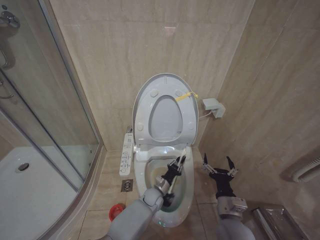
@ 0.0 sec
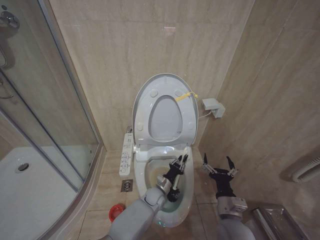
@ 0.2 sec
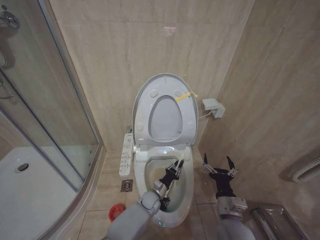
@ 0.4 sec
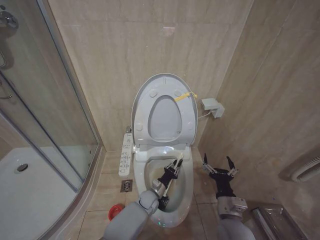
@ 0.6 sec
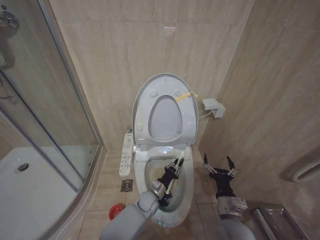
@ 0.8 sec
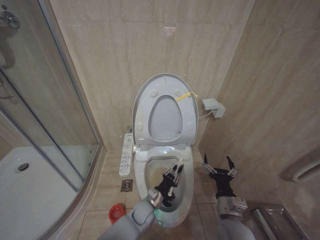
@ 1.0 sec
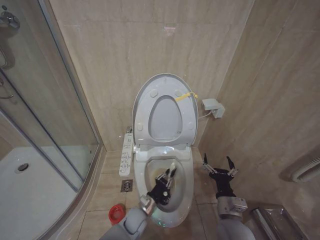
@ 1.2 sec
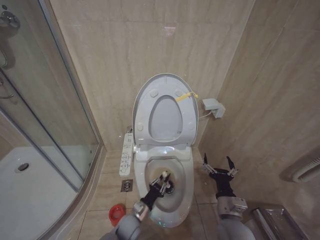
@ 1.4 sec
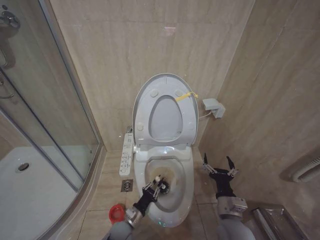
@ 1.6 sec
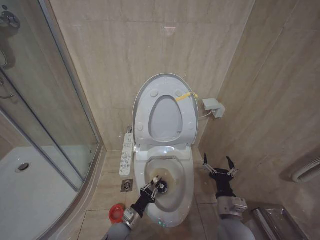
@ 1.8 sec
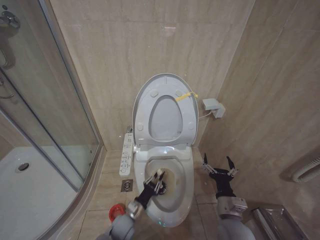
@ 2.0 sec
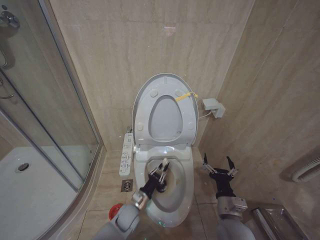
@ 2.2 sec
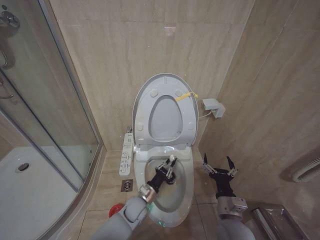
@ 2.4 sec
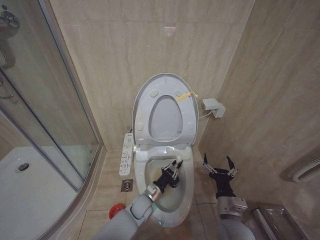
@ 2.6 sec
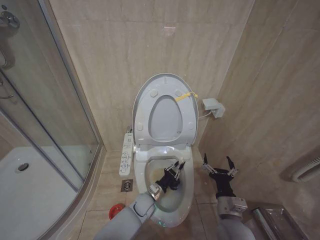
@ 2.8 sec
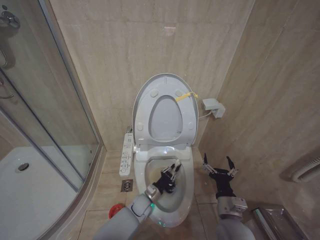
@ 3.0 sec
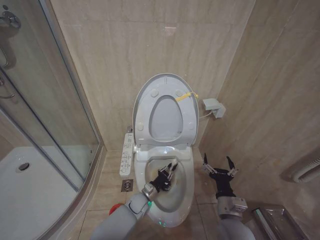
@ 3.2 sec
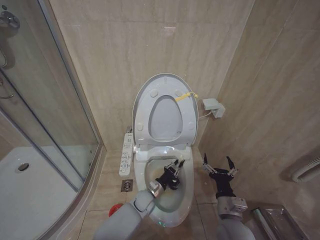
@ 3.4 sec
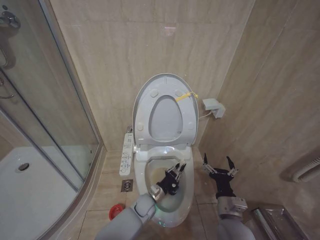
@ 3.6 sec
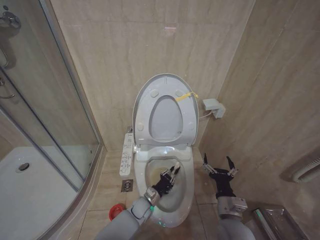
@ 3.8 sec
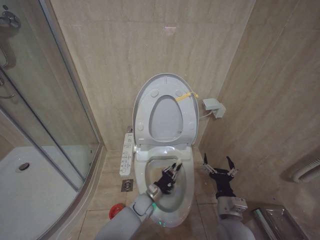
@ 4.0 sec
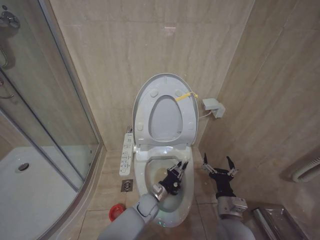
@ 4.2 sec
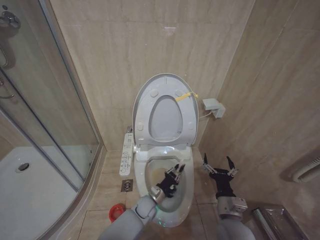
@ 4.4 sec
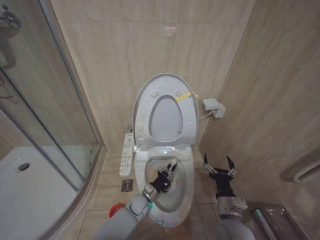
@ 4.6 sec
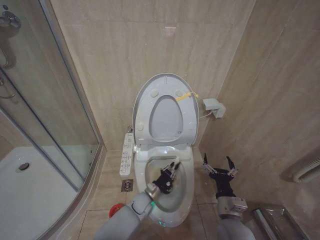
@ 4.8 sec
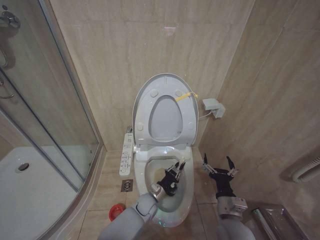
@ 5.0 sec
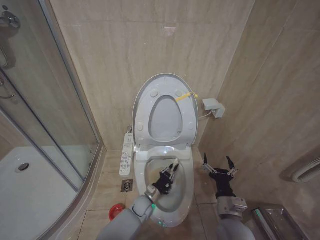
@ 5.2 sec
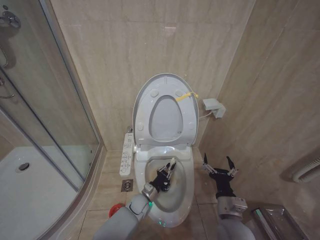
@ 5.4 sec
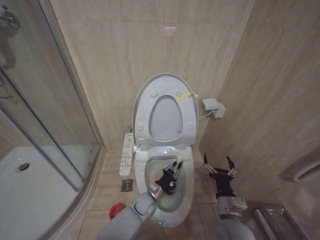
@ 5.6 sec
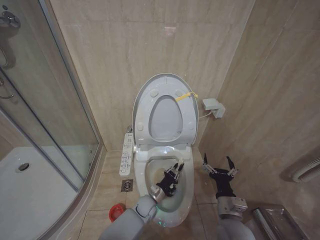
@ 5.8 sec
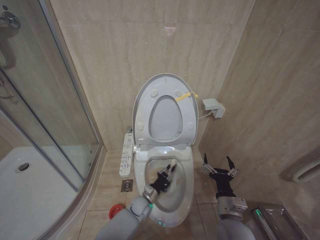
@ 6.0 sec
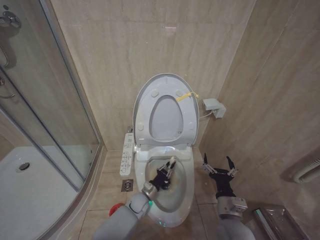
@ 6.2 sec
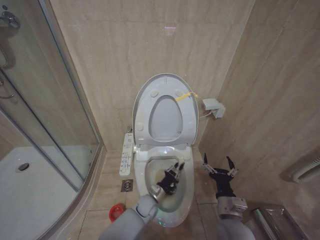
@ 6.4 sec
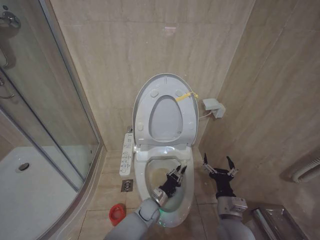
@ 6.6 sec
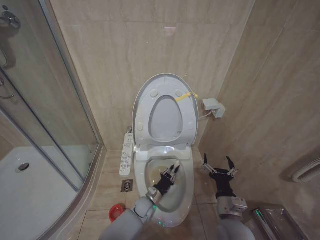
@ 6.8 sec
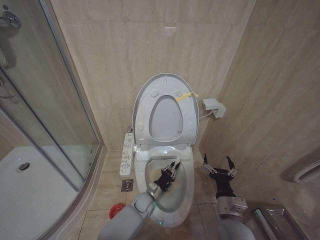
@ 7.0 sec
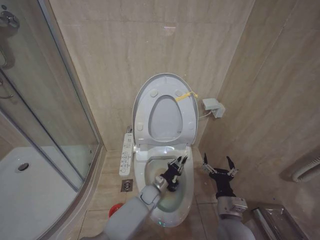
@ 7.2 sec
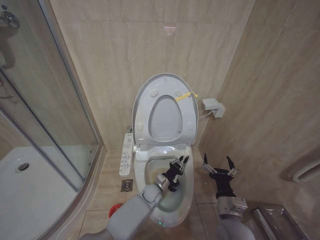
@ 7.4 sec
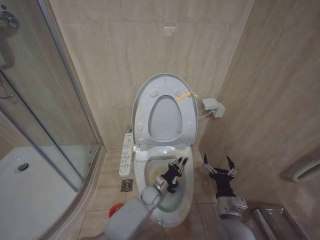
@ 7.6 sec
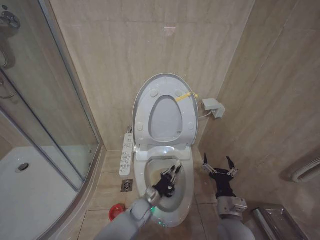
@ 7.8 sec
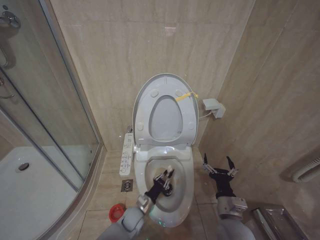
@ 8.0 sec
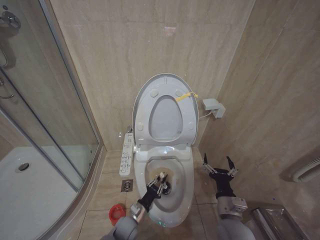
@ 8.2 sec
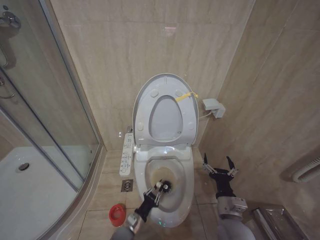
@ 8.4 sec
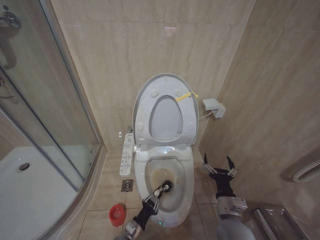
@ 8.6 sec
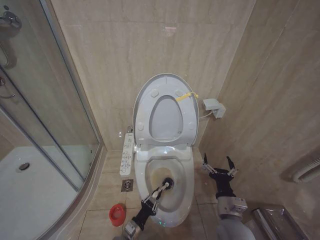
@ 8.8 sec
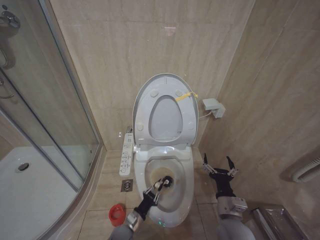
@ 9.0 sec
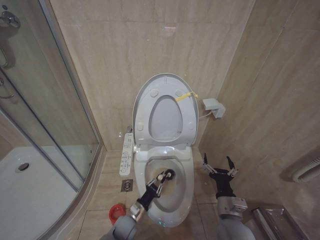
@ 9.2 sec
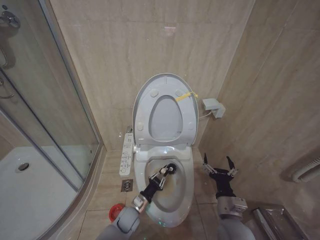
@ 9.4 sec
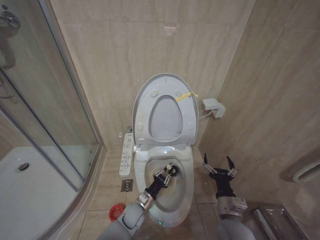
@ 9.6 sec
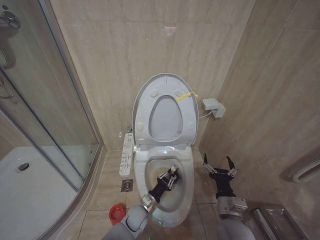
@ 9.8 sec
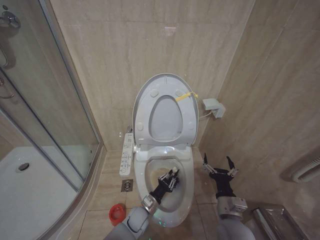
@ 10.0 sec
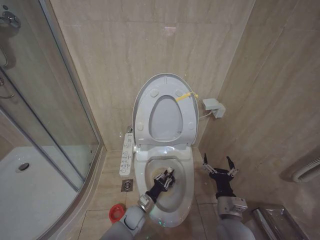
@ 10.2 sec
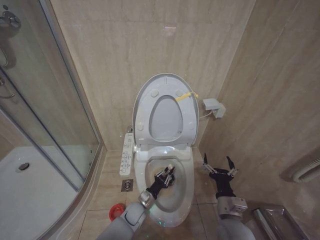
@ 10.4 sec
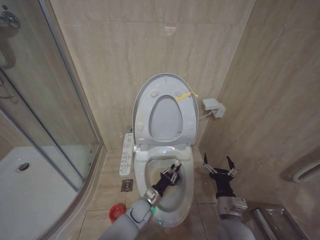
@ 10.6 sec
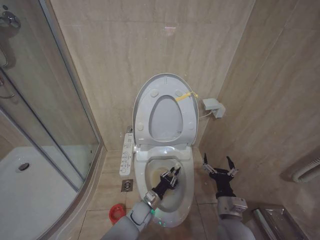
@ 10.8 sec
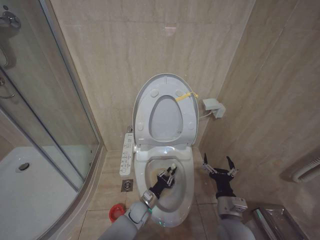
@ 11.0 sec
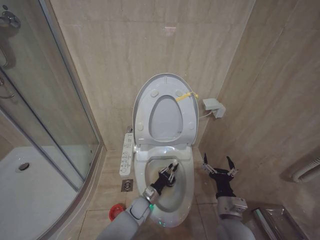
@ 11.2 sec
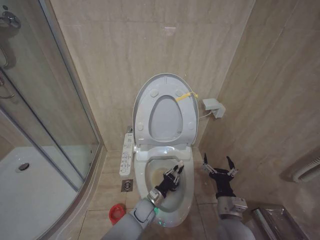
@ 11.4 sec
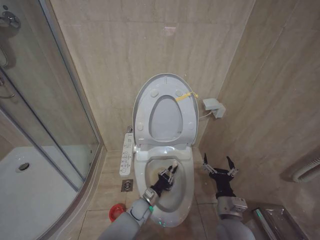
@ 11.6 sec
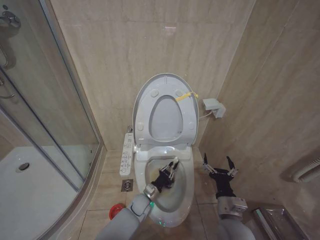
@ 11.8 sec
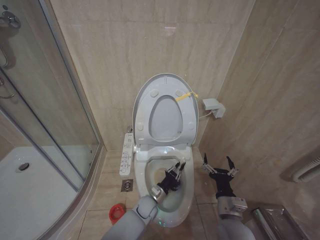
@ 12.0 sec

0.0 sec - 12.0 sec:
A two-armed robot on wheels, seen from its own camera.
Task of the whole recording: Open the toilet lid, clean the toilet bowl with a toilet brush, close the toilet lid, and flush.
0.0 sec - 1.6 sec: The left gripper heads backward and to the left, covering some 15 cm.
1.6 sec - 3.0 sec: The left gripper goes roughly 10 cm forward and to the right.
3.0 sec - 6.0 sec: The grippers make only small movements.
6.0 sec - 7.6 sec: The left gripper moves about 5 cm.
7.6 sec - 9.0 sec: The left gripper shifts roughly 20 cm backward and to the left.
9.0 sec - 10.4 sec: The left gripper shifts approximately 10 cm forward.
10.4 sec - 12.0 sec: The left gripper heads to the right, covering roughly 5 cm.

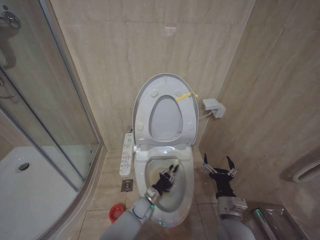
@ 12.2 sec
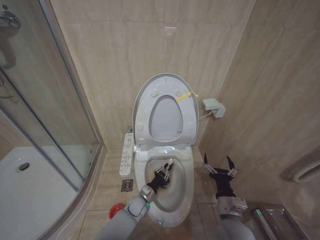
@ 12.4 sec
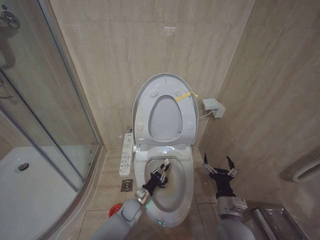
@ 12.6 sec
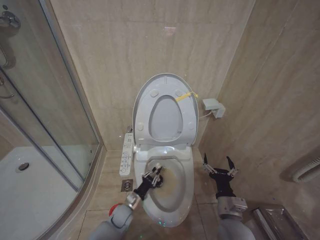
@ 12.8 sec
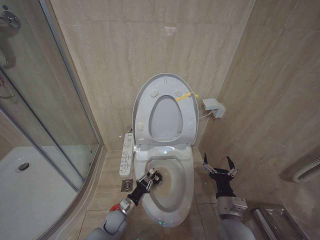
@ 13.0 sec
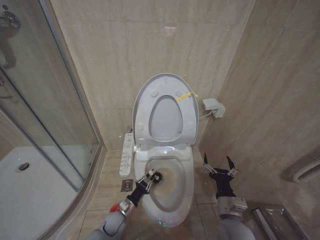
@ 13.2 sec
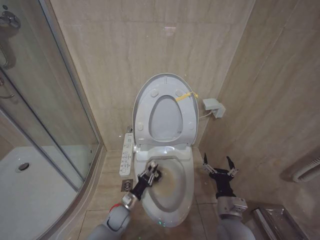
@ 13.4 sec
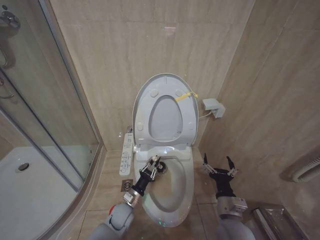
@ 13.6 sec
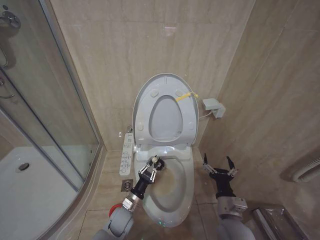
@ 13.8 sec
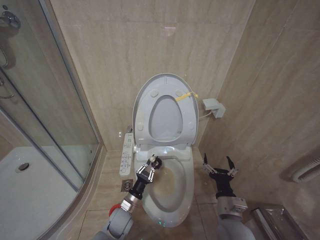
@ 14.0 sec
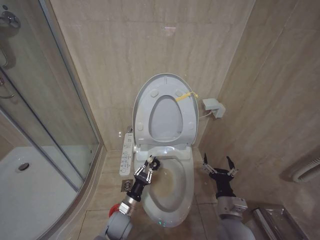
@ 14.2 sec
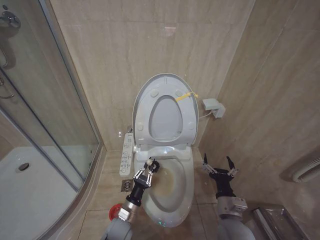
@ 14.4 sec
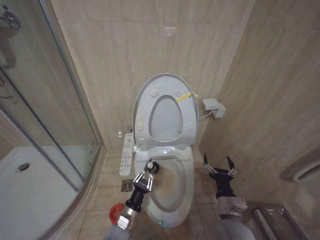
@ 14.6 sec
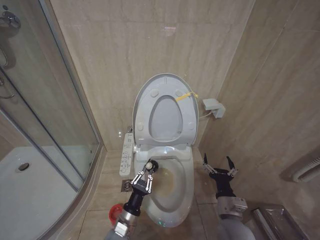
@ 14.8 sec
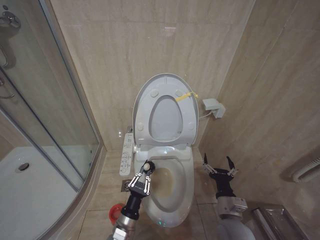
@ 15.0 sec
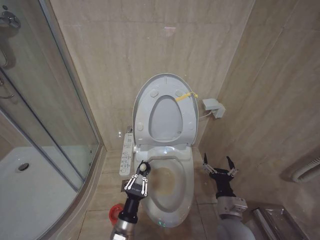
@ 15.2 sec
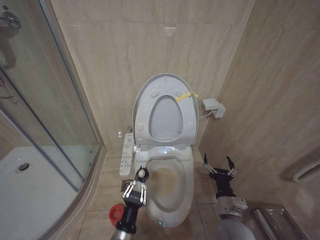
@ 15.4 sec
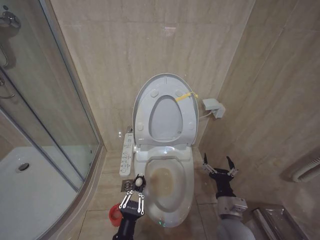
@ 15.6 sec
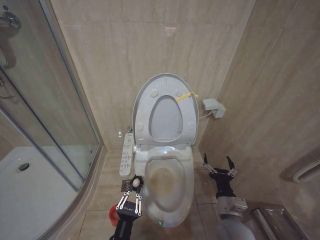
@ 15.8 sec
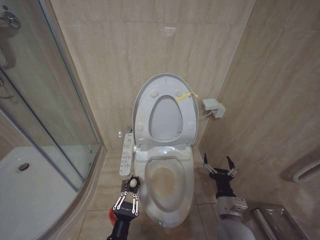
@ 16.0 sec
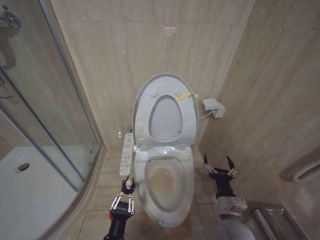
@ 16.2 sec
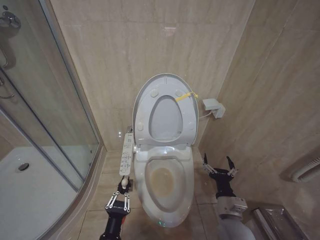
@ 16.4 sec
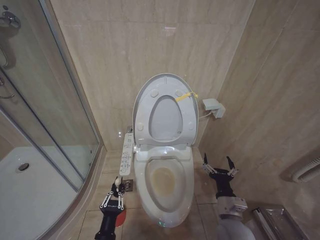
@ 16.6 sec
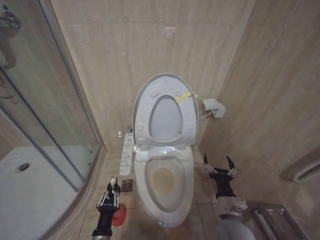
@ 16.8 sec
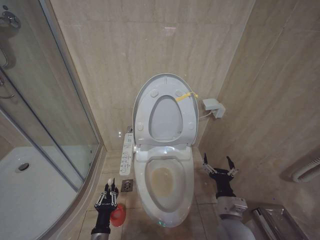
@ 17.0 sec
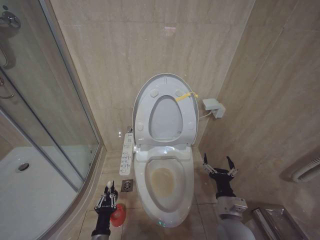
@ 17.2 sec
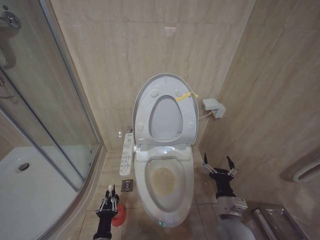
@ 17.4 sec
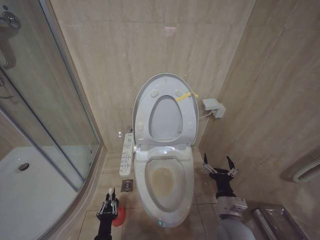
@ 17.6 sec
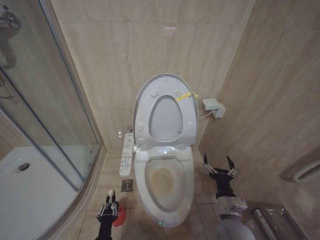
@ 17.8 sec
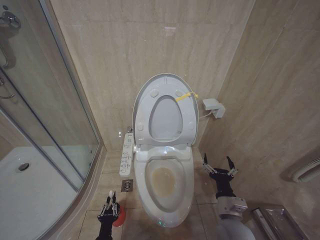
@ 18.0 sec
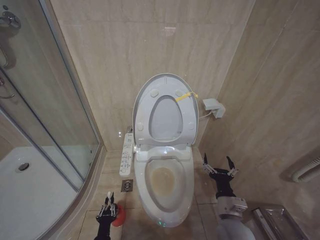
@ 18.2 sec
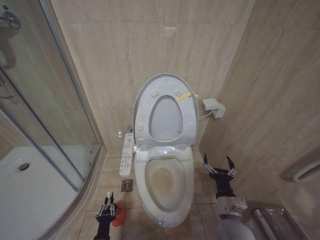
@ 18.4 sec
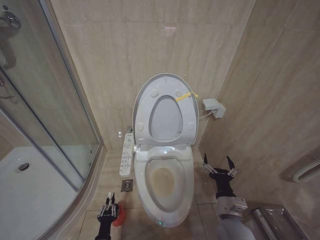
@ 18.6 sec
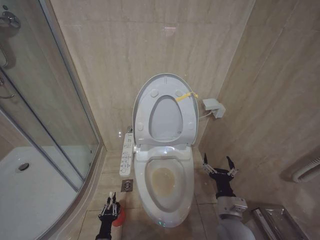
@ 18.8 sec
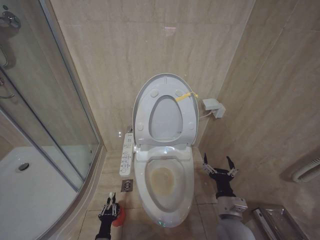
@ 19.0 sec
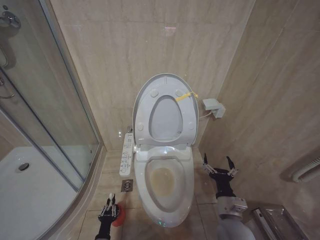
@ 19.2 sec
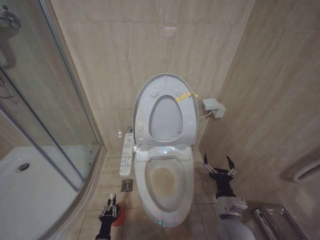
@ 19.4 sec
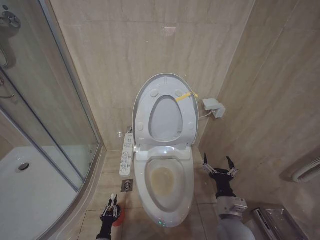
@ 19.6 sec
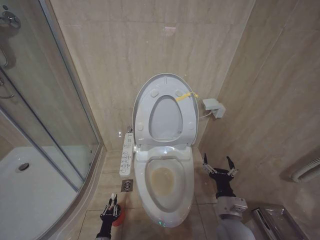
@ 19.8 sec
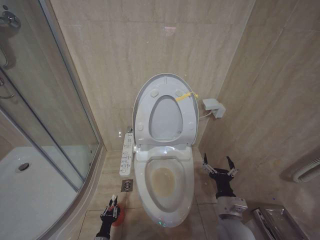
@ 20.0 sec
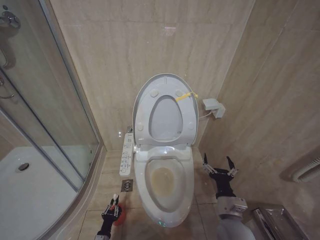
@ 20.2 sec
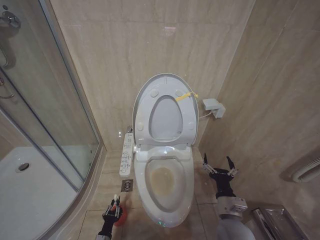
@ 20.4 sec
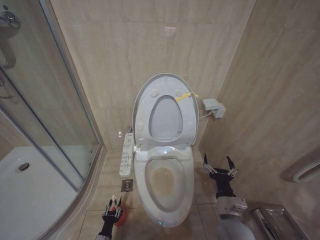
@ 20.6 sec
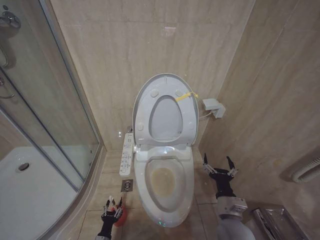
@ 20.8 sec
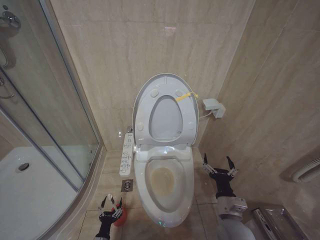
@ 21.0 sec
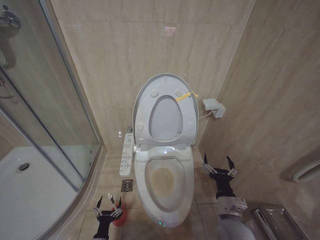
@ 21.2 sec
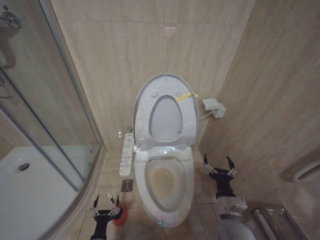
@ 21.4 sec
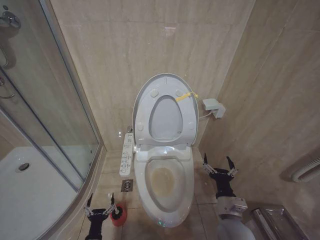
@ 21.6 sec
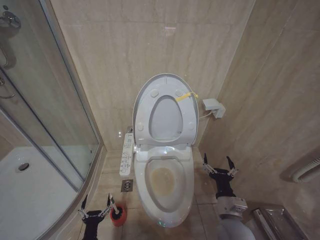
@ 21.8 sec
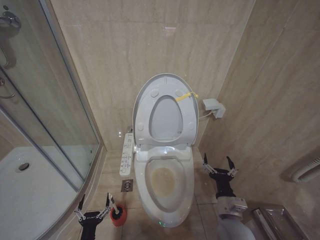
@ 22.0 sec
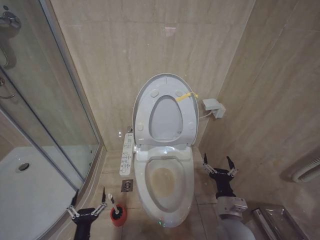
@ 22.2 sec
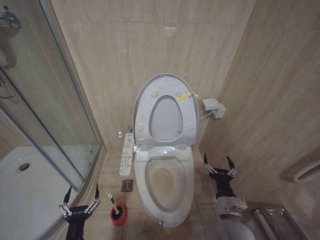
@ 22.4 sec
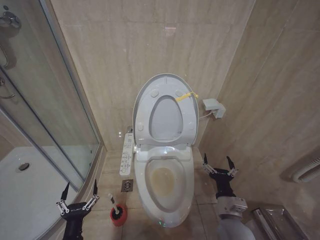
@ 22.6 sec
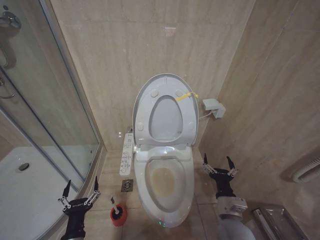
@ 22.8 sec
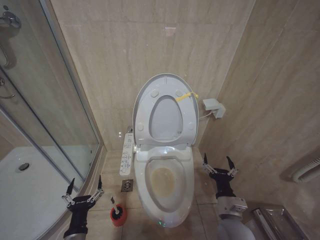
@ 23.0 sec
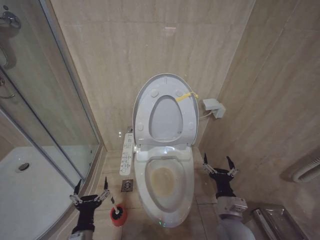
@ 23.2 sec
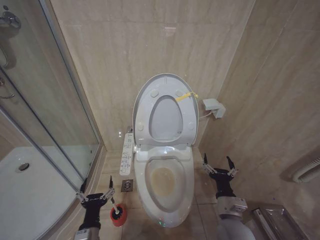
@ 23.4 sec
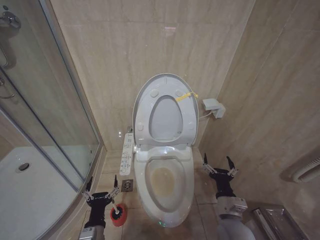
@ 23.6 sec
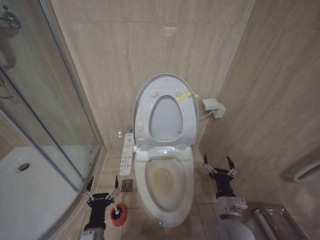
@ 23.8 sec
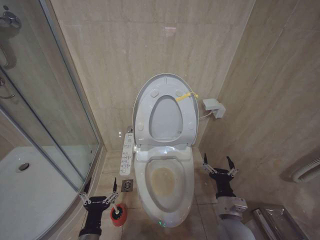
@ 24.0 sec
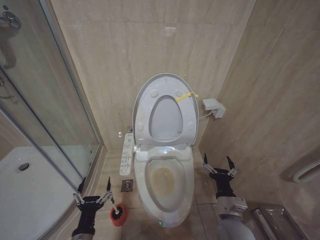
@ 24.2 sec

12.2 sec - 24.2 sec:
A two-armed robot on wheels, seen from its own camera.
Task of the whole recording: Open the toilet lid, clean the toilet bowl with a toilet brush, close the toilet lid, and flush.
12.2 sec - 13.8 sec: The left gripper travels to the left and upward by some 10 cm.
13.8 sec - 15.2 sec: The left gripper is displaced backward and upward by approximately 15 cm.
15.2 sec - 16.6 sec: The left gripper goes roughly 5 cm backward.
16.6 sec - 18.2 sec: The left gripper shifts some 15 cm downward.
21.2 sec - 22.6 sec: The left gripper moves upward, approximately 20 cm.
